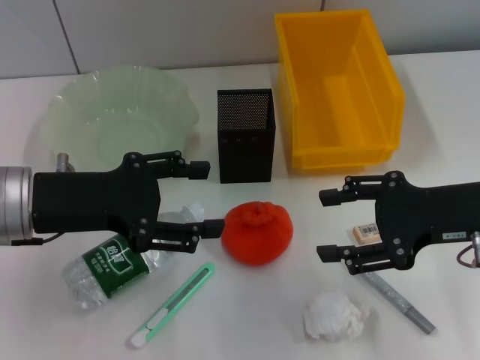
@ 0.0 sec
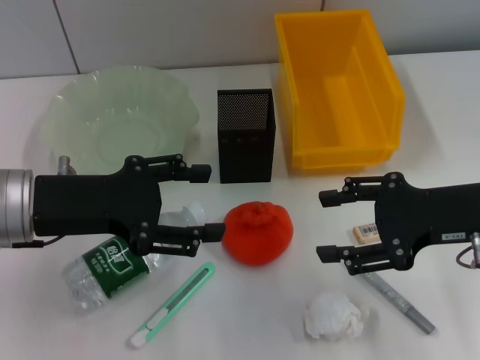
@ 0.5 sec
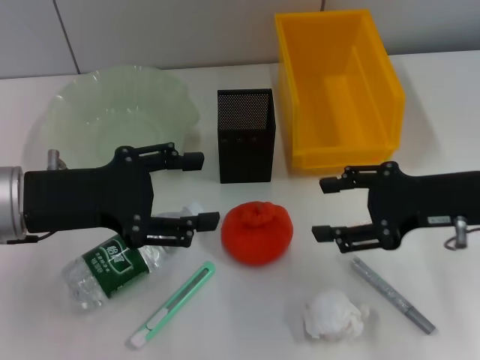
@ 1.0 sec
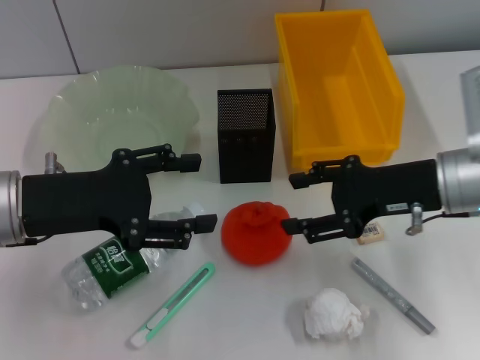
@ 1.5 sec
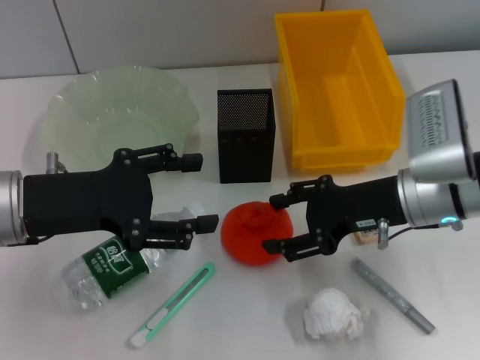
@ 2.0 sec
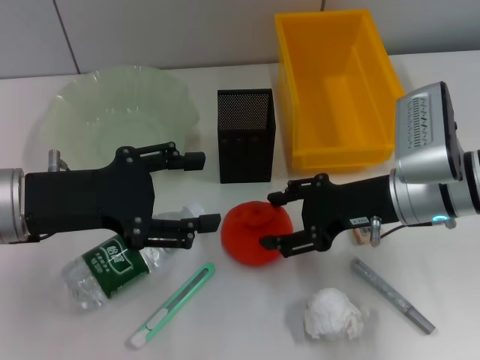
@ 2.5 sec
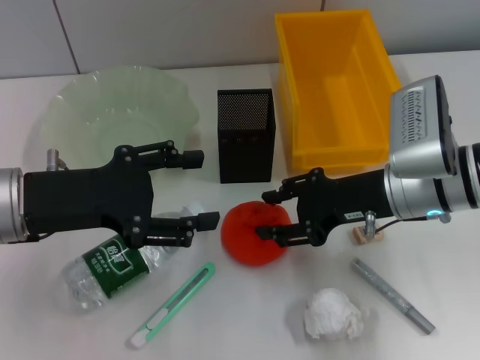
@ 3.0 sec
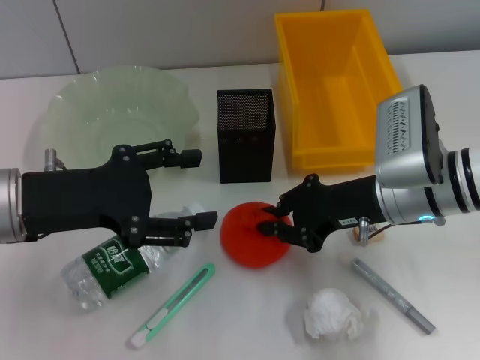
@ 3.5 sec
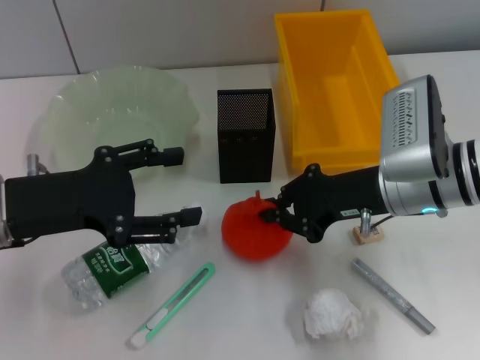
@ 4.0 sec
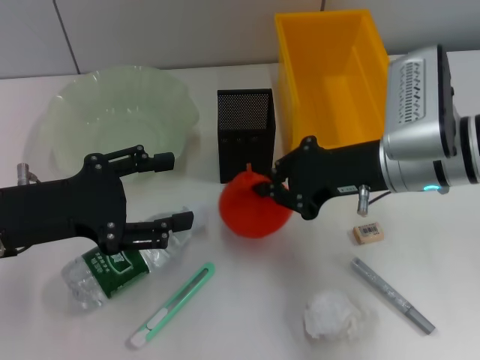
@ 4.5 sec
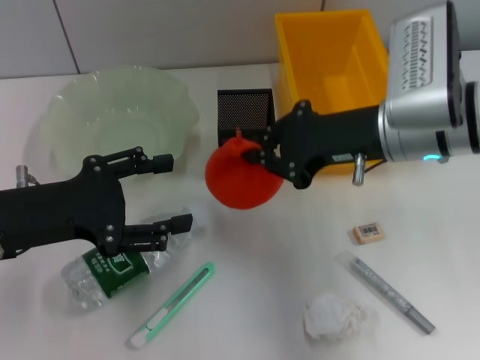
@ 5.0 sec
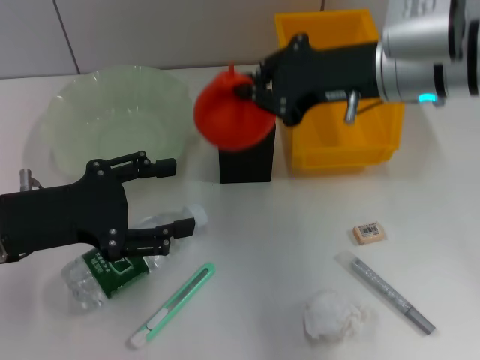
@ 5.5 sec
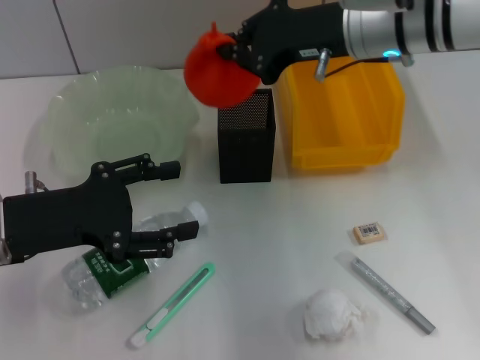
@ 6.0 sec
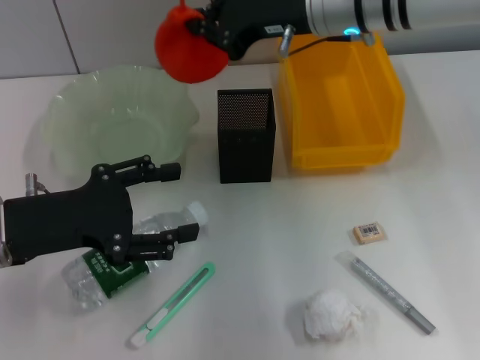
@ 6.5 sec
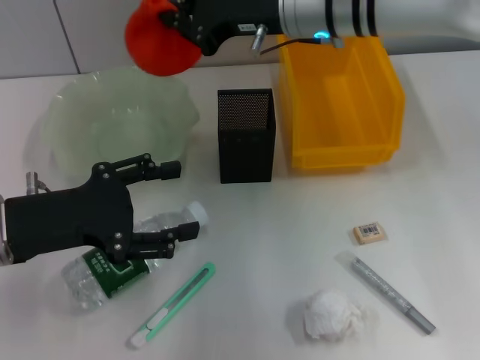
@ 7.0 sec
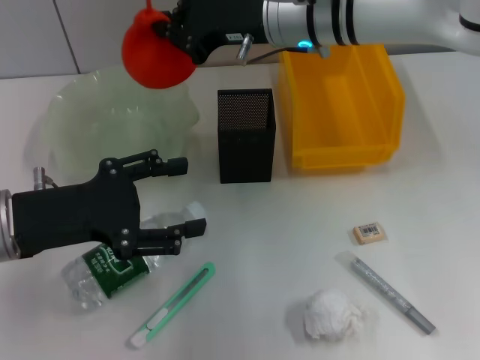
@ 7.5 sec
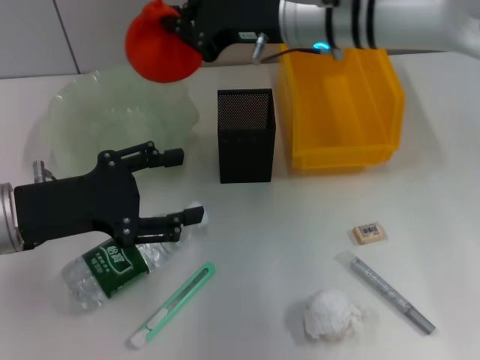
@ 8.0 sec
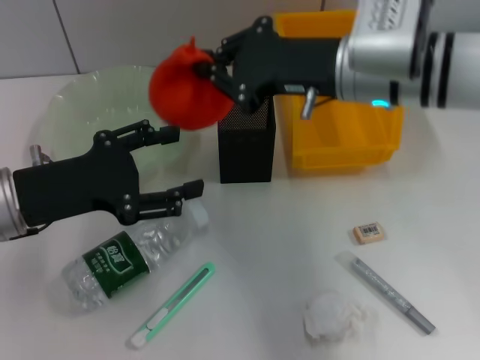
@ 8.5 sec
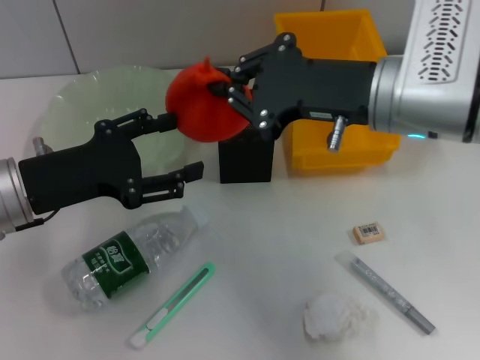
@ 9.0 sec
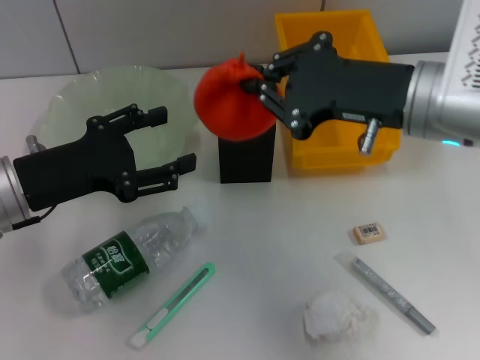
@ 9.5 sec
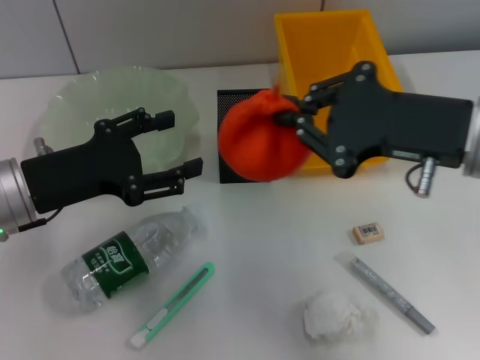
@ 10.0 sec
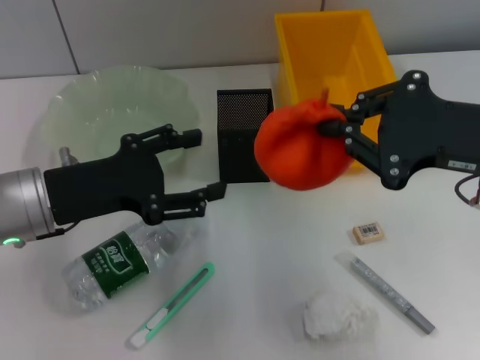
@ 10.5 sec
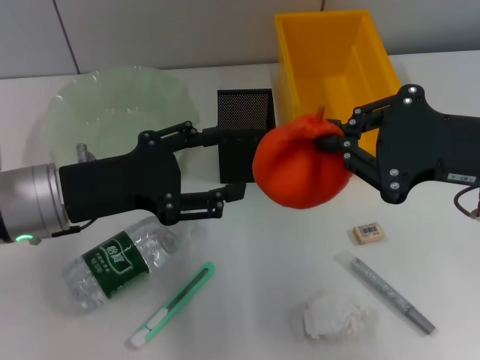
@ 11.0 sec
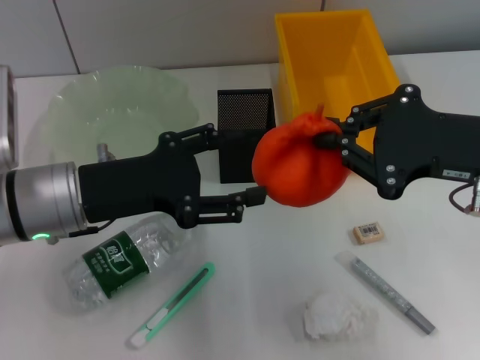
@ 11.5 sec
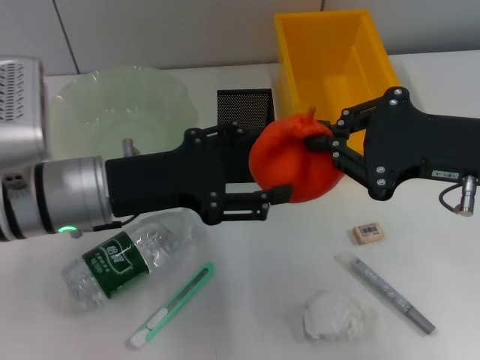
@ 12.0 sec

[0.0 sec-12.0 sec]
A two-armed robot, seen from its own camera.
Step, 0.0 sec to 3.0 sec: Grab the orange with the right hand.
0.0 sec to 2.0 sec: The right gripper moves to the left and forward, some 10 cm.
2.0 sec to 4.0 sec: The right gripper closes up.
4.0 sec to 6.0 sec: The right gripper moves upward and forward, roughly 15 cm.
6.0 sec to 8.0 sec: The right gripper ends up approximately 5 cm from where it was.
8.0 sec to 10.0 sec: The right gripper goes approximately 20 cm backward and to the right.
10.0 sec to 12.0 sec: The left gripper goes some 5 cm to the right.

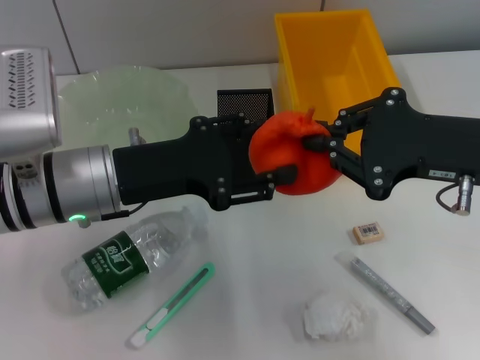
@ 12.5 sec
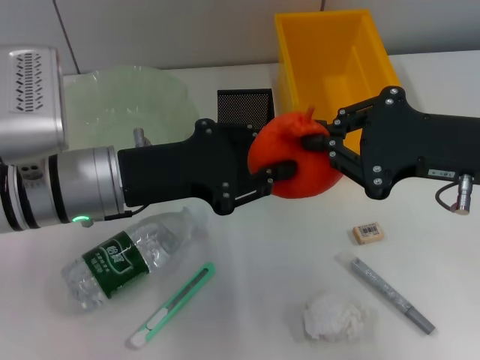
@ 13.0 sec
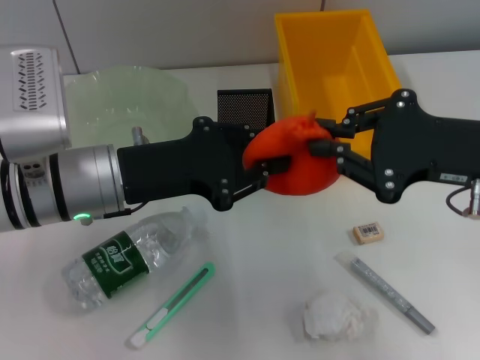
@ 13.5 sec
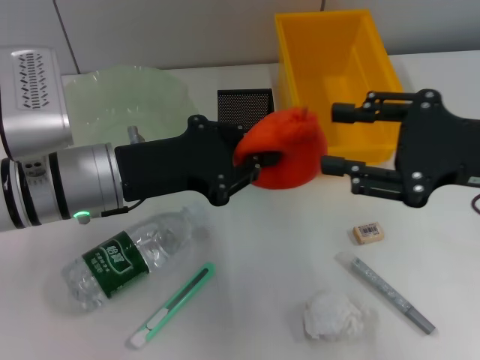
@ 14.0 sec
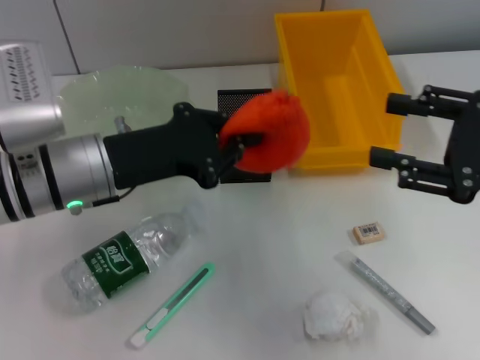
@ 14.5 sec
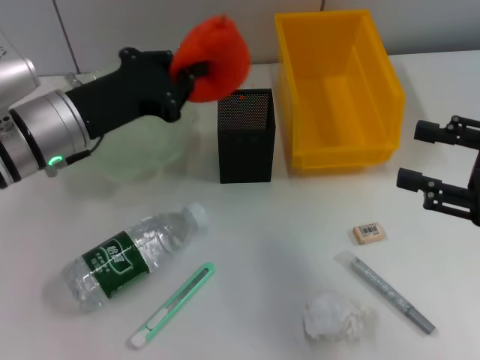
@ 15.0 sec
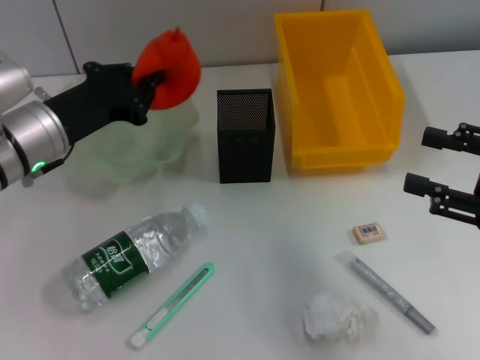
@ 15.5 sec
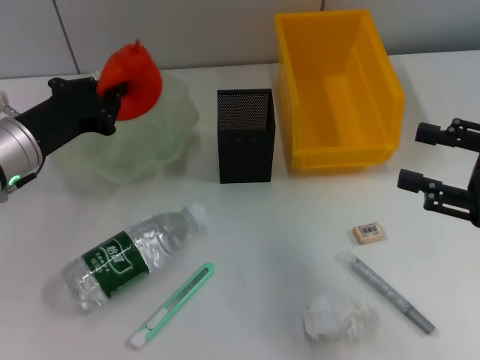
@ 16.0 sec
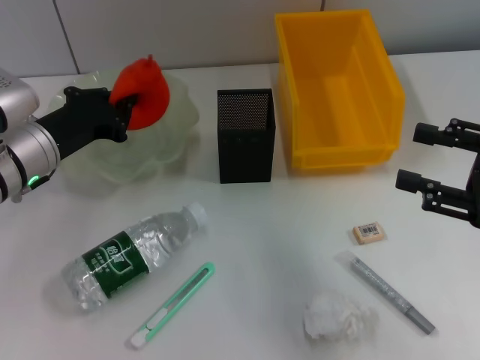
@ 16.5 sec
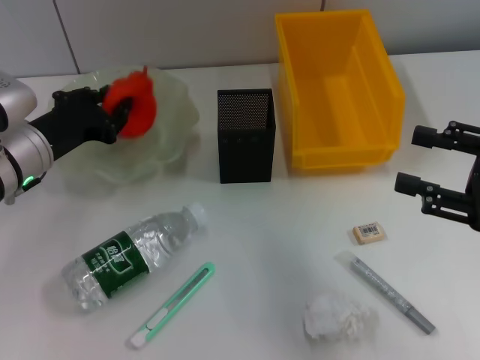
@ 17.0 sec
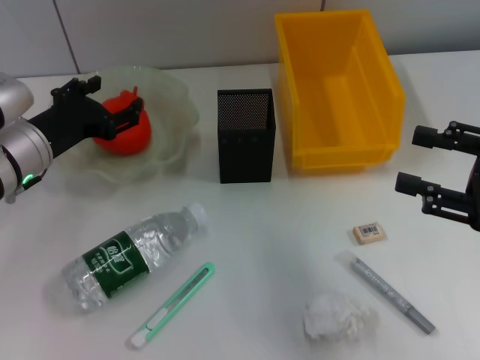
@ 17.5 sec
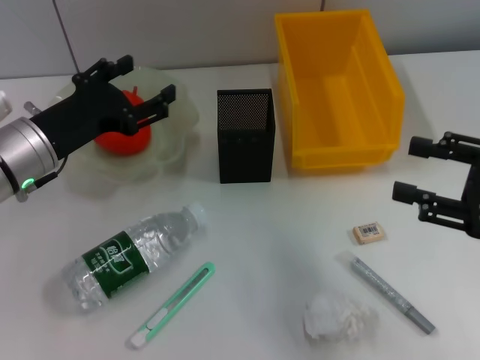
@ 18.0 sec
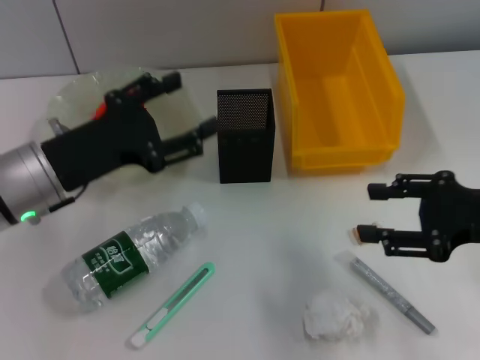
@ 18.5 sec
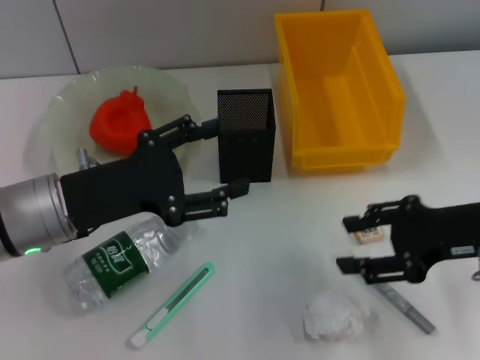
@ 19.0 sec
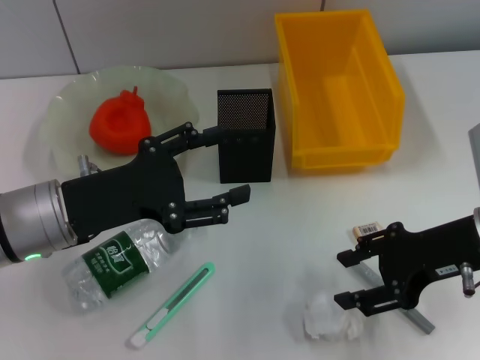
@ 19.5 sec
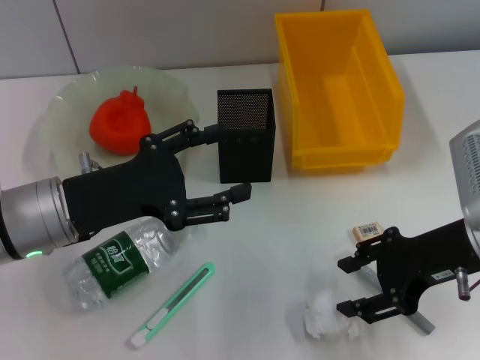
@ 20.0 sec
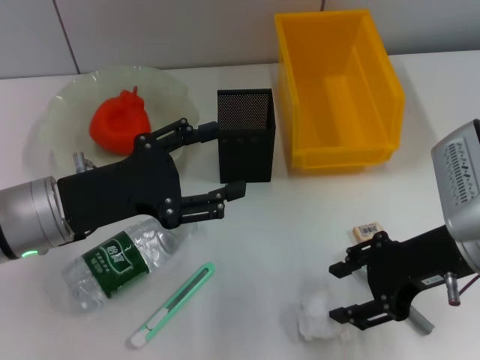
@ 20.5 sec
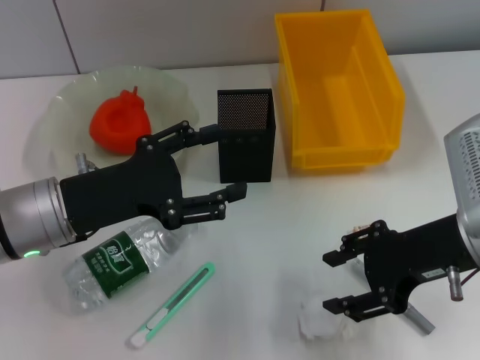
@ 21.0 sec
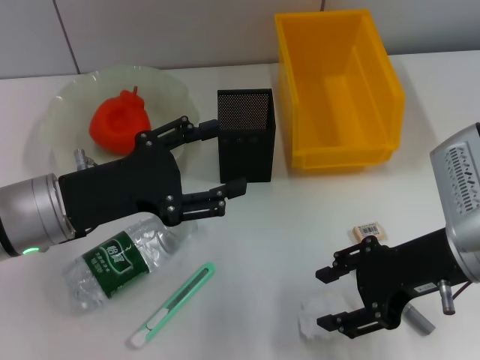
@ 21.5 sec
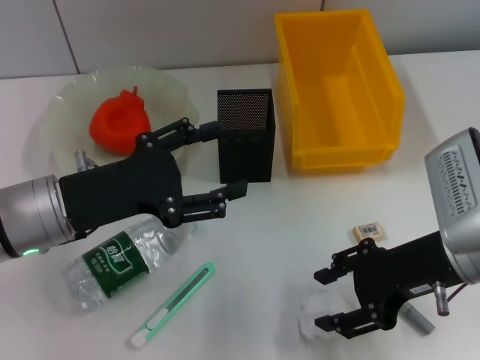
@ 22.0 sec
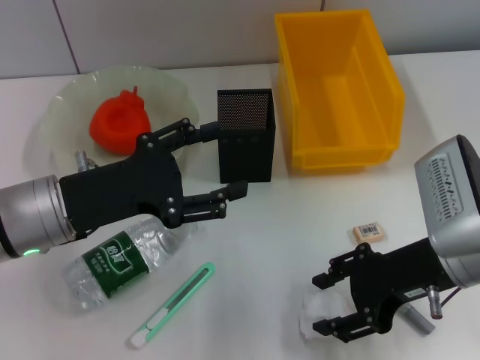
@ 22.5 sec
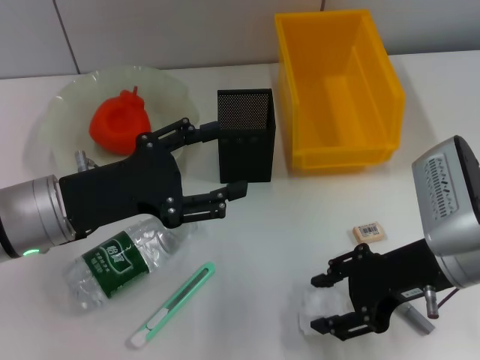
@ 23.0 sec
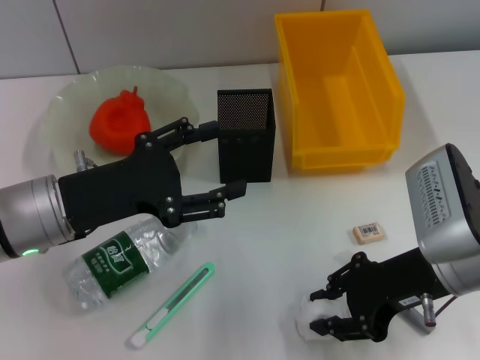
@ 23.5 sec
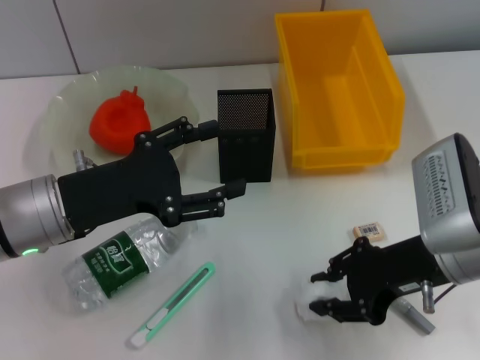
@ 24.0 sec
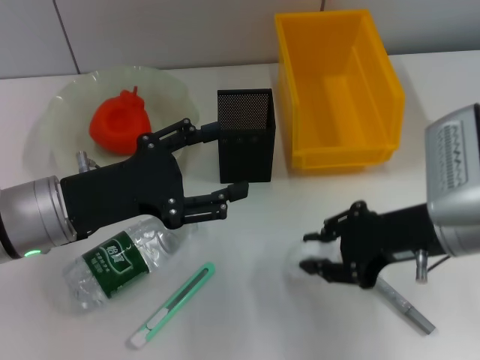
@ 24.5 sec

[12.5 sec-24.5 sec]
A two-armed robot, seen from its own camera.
Step, 14.5 sec to 17.5 sec: Place the orange into the fruit bowl with the left hand.
Step, 18.0 sec to 23.0 sec: Grab the paper ball with the right hand.
12.5 sec to 14.5 sec: The right gripper travels to the right by some 5 cm, and opens up. The left gripper closes.
14.5 sec to 16.5 sec: The left gripper moves to the left, about 5 cm.
16.5 sec to 18.5 sec: The left gripper heads backward, covering about 5 cm, and opens up.
18.5 sec to 20.5 sec: The right gripper travels to the left by some 5 cm.
20.5 sec to 22.5 sec: The grippers make only small movements.
22.5 sec to 24.5 sec: The right gripper closes up.

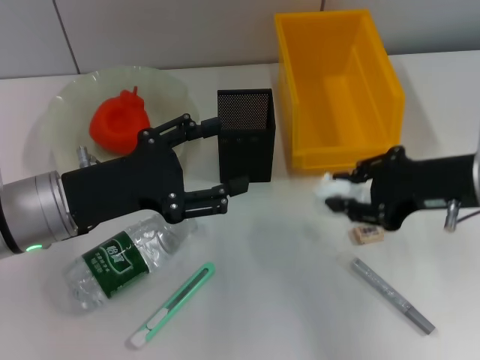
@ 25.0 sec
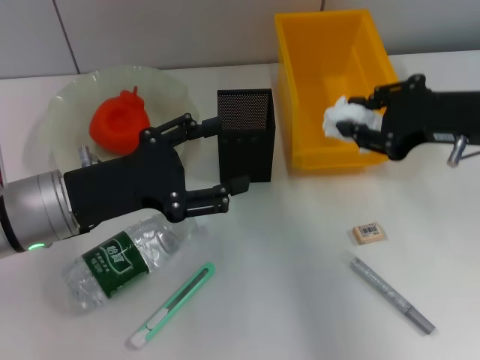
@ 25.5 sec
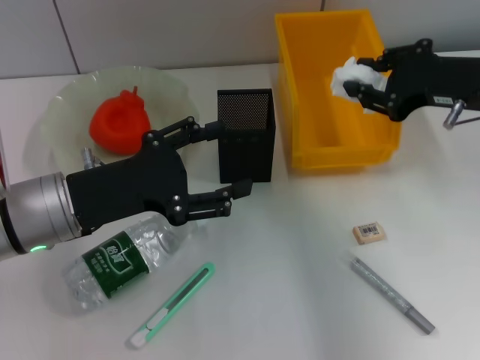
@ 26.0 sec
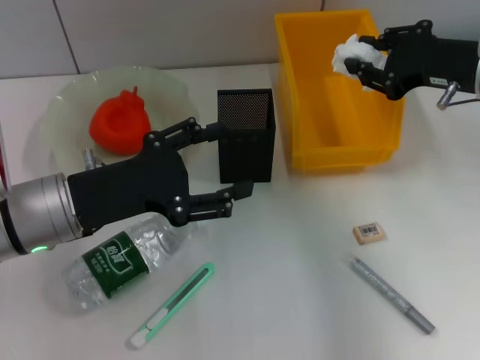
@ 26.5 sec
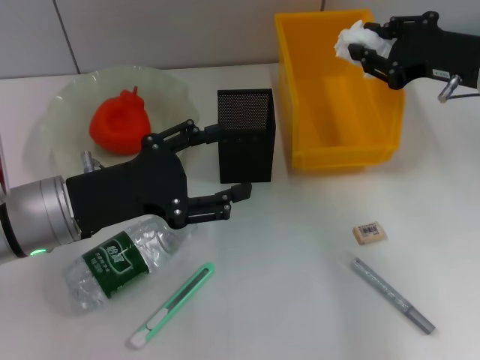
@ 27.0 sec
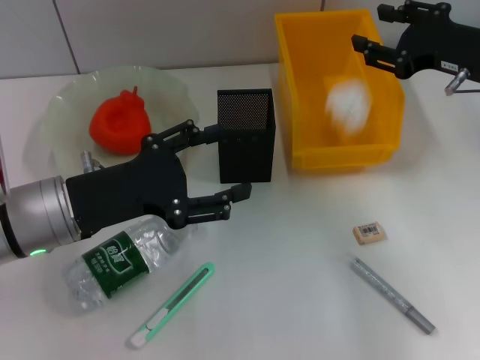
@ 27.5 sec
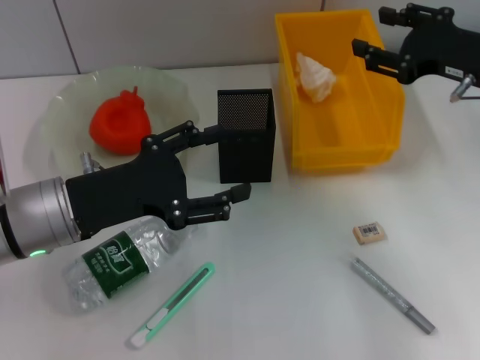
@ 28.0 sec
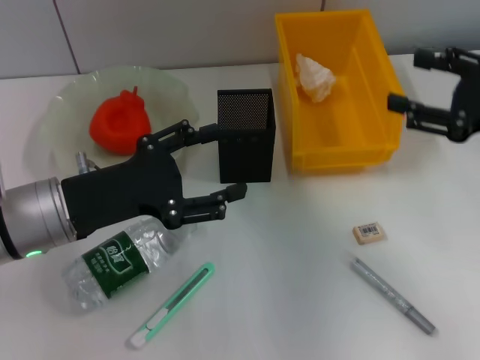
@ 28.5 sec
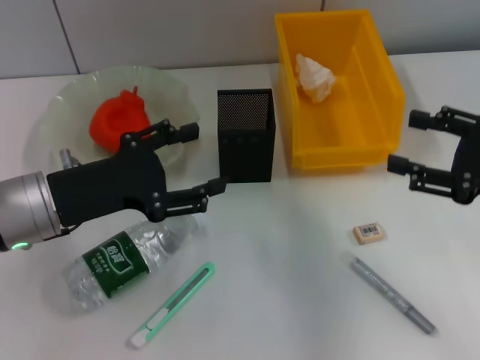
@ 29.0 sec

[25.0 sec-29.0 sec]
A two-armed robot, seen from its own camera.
Step, 25.0 sec to 27.5 sec: Place the paper ball into the trash can with the right hand.
25.0 sec to 27.0 sec: The right gripper shifts approximately 10 cm forward.
27.0 sec to 29.0 sec: The right gripper is displaced backward by some 10 cm, and opens its fingers.
